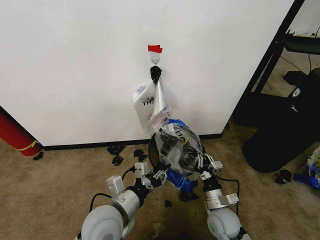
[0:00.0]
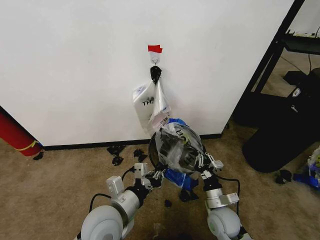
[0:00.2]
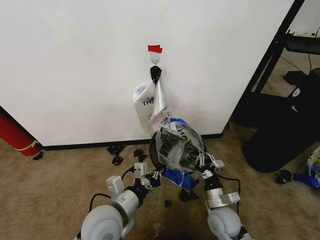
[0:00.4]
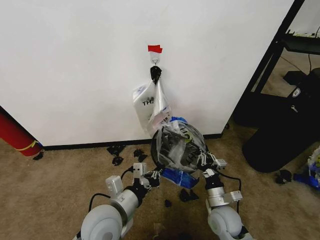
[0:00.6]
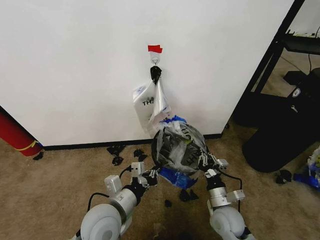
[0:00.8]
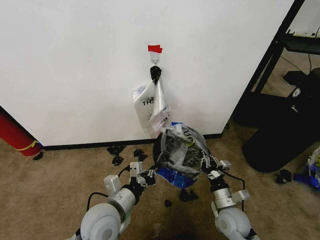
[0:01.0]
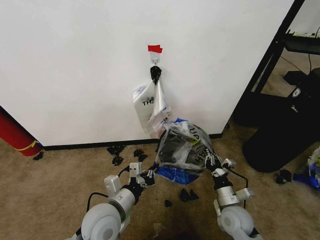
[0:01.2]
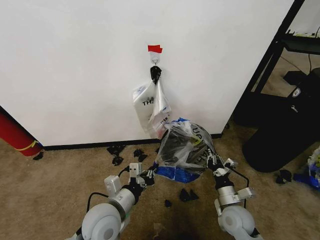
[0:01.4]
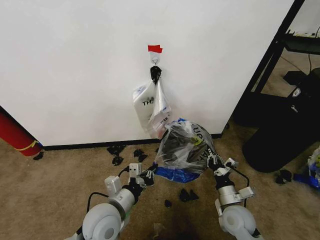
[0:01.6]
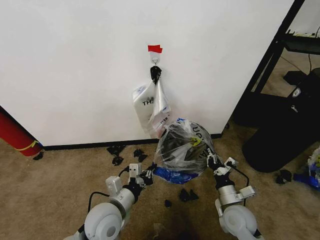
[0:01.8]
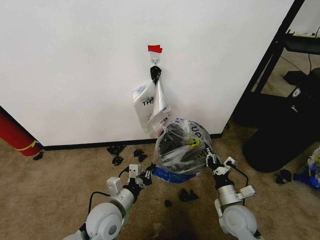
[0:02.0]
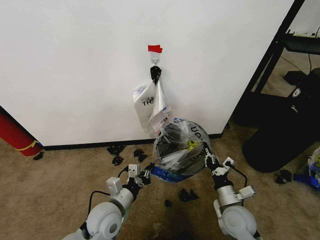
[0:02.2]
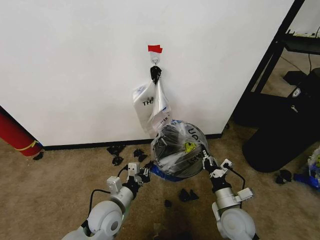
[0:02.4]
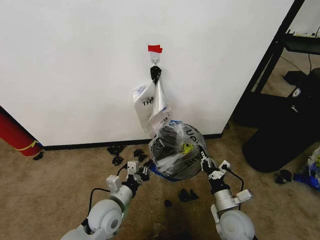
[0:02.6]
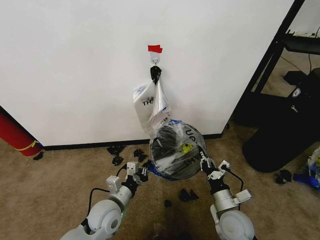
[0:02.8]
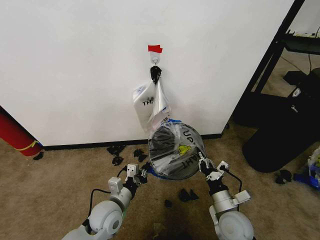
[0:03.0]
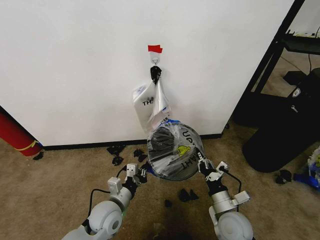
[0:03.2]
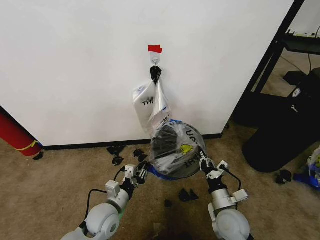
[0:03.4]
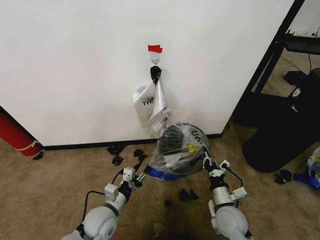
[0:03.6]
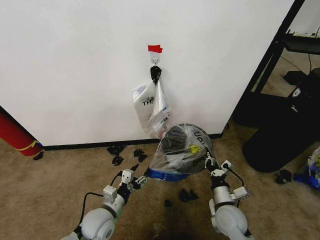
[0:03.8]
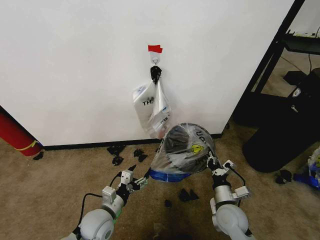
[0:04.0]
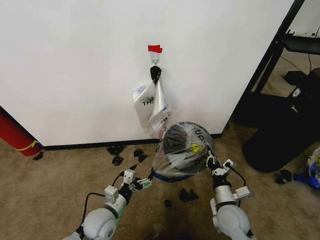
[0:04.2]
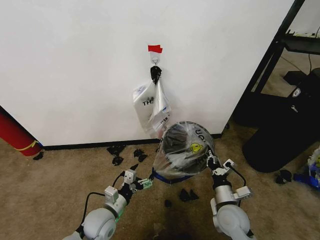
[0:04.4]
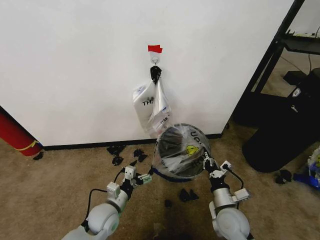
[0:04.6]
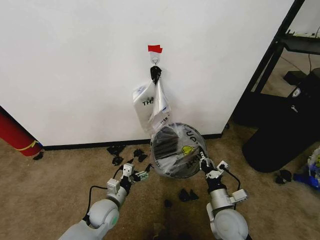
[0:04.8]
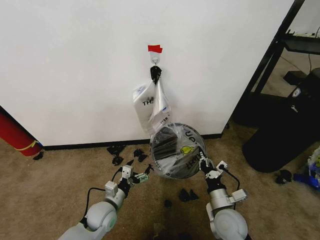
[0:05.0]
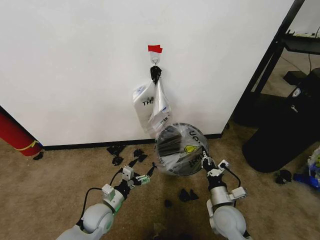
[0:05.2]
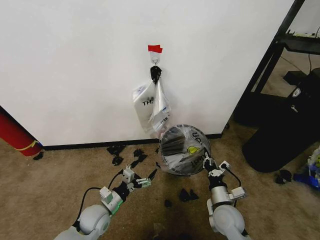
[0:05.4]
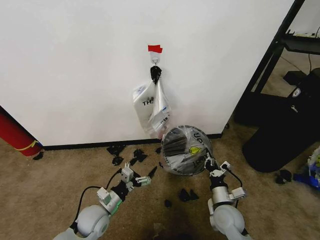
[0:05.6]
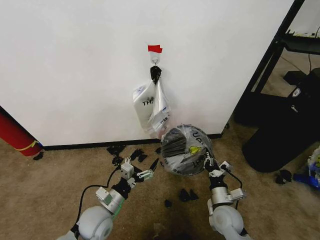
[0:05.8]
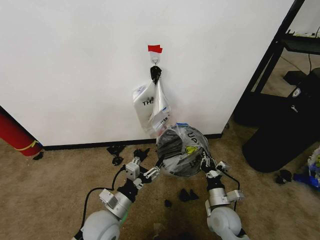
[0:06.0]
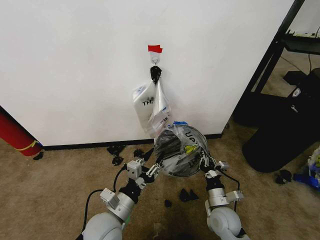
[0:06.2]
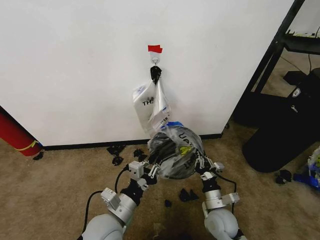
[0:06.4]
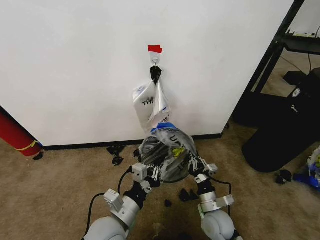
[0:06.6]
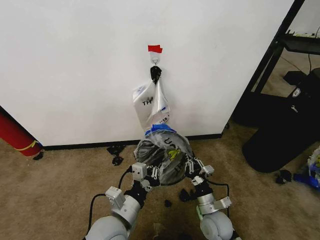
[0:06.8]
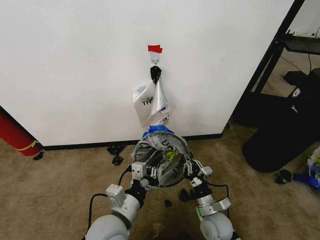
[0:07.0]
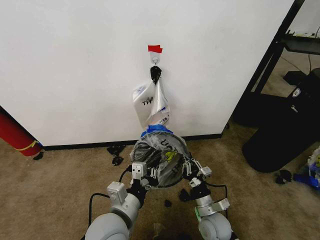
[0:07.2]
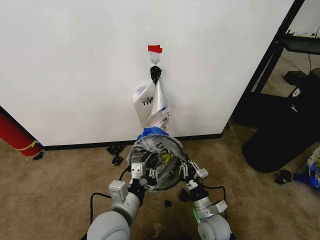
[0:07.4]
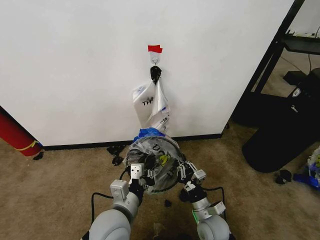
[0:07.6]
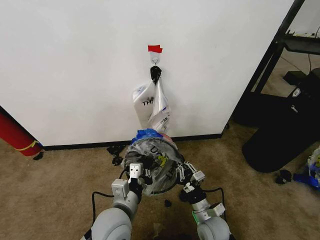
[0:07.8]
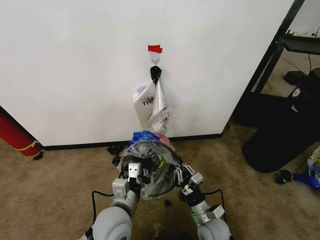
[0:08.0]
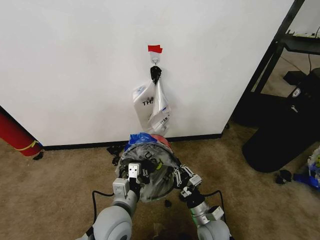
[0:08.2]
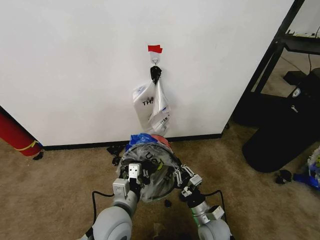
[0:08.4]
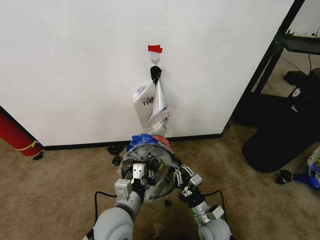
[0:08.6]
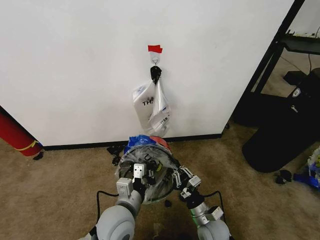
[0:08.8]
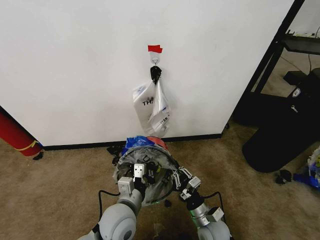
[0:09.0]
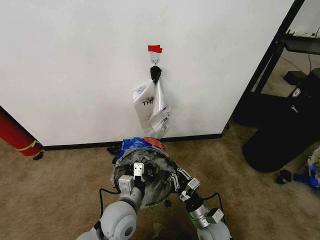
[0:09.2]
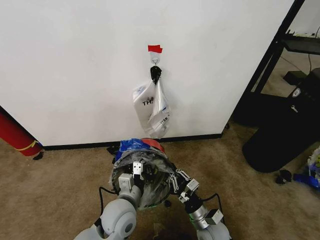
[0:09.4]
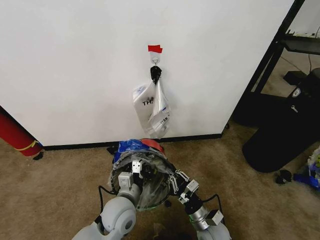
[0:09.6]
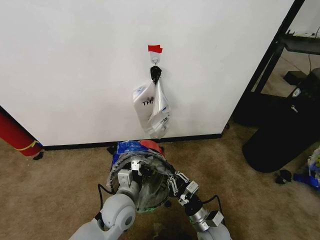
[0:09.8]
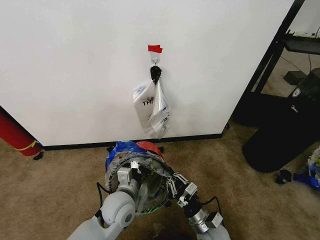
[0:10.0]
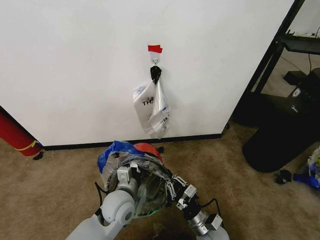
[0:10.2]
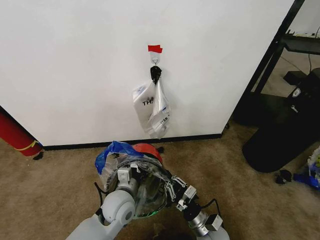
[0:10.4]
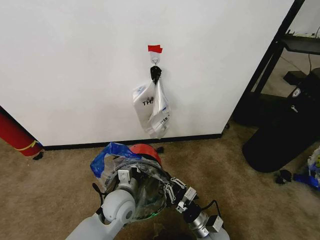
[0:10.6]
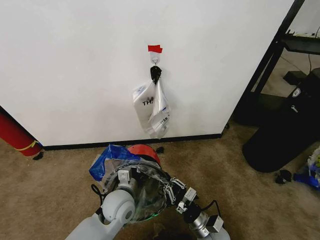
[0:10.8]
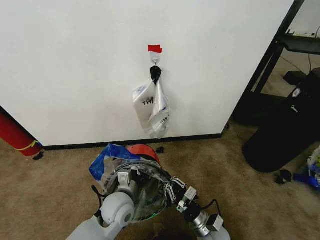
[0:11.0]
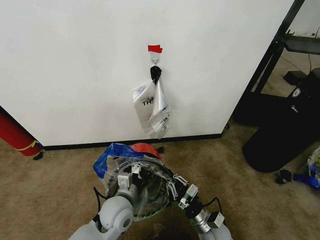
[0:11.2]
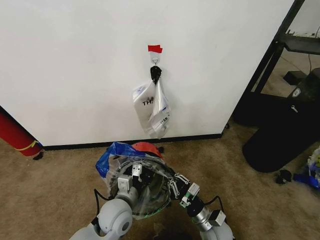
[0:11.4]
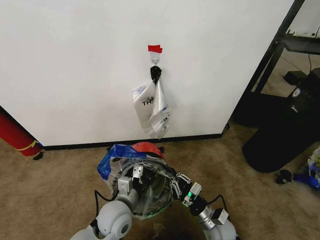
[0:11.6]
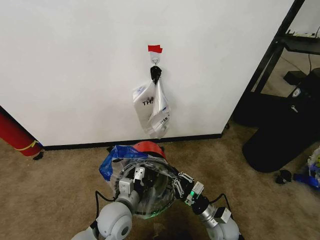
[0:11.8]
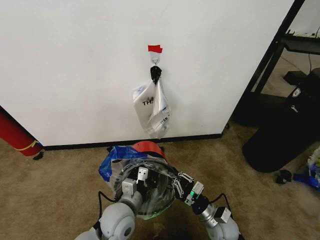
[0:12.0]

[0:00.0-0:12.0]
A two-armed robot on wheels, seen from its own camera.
Task of the whole recording: Pick up the garbage bag from the wall and place it over the trash bin.
0:01.6 to 0:03.0: The left gripper travels downward by roughly 10 cm.
0:03.0 to 0:04.4: The left gripper opens.
0:04.4 to 0:06.0: The left gripper shifts roughly 5 cm upward.
0:06.0 to 0:07.6: The left gripper moves upward, about 5 cm, and closes up. The right gripper moves approximately 5 cm.
0:07.6 to 0:09.0: The grippers move only a little.
0:09.0 to 0:10.4: The left gripper ends up approximately 5 cm from where it was.
0:10.4 to 0:12.0: The grippers stay close to where they were, moving slightly.

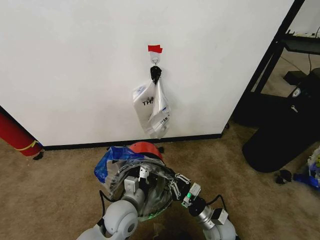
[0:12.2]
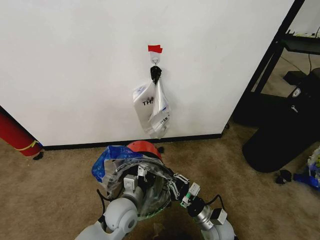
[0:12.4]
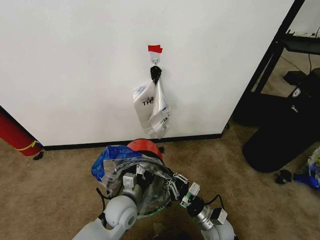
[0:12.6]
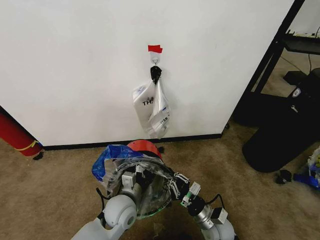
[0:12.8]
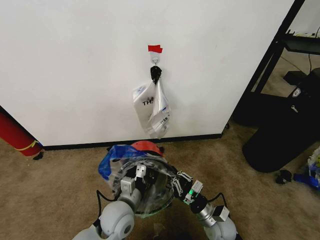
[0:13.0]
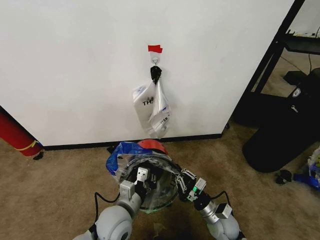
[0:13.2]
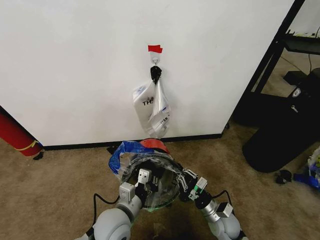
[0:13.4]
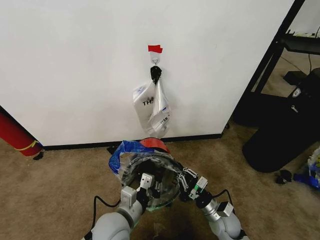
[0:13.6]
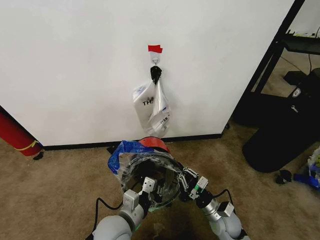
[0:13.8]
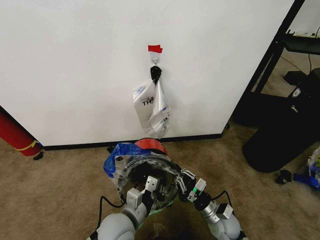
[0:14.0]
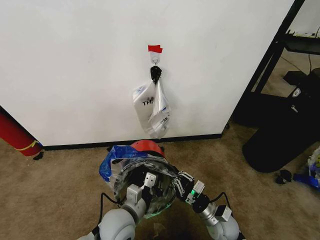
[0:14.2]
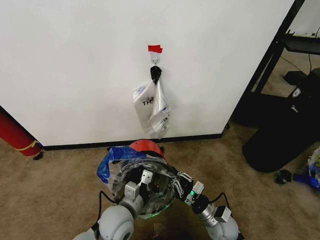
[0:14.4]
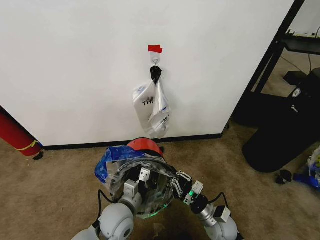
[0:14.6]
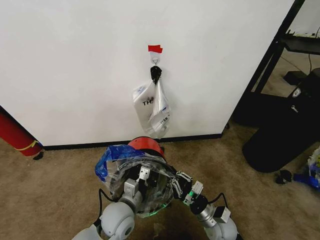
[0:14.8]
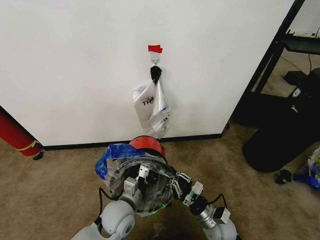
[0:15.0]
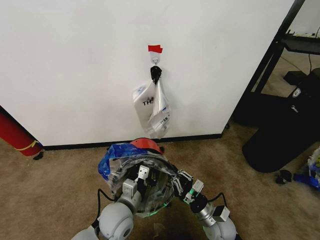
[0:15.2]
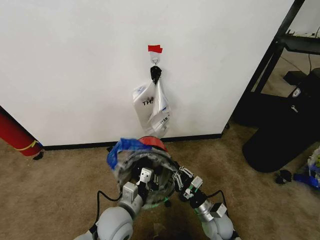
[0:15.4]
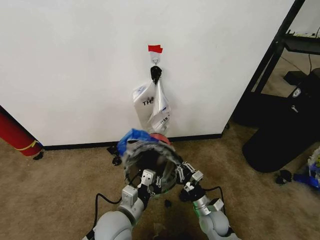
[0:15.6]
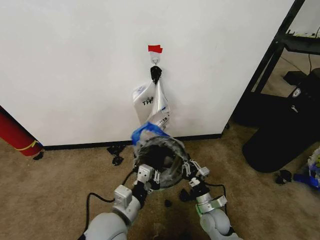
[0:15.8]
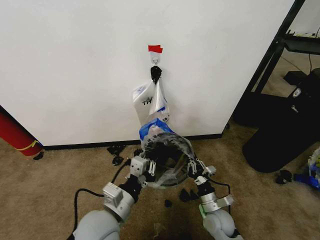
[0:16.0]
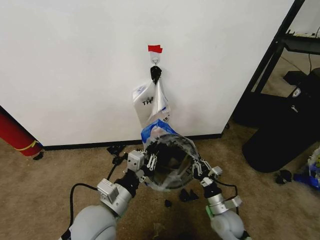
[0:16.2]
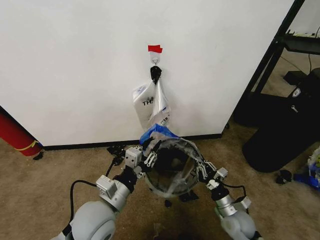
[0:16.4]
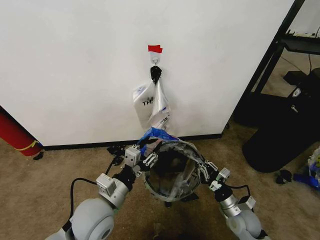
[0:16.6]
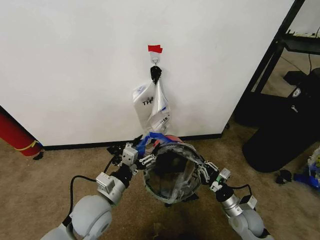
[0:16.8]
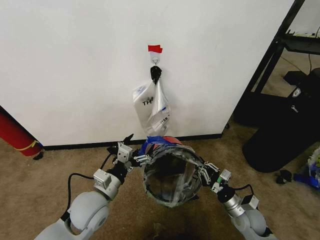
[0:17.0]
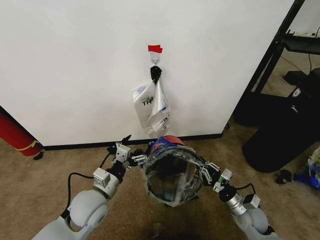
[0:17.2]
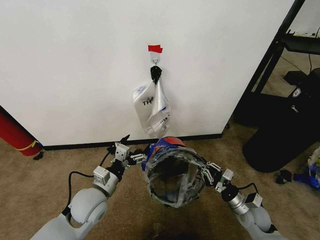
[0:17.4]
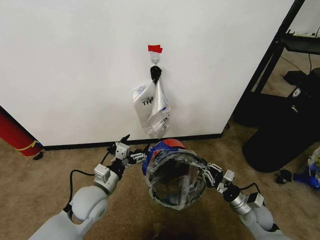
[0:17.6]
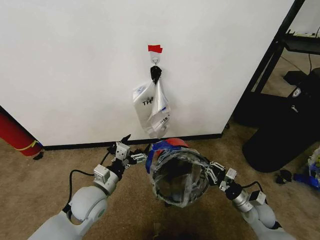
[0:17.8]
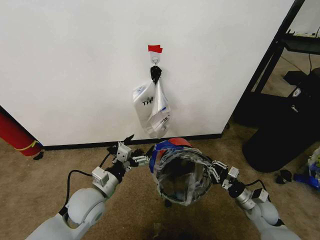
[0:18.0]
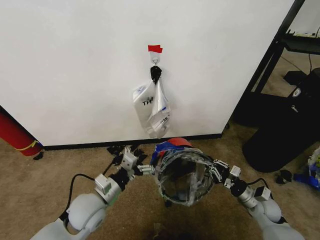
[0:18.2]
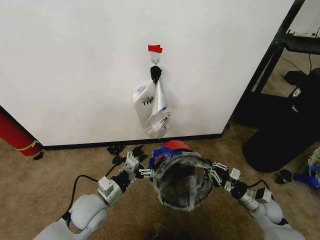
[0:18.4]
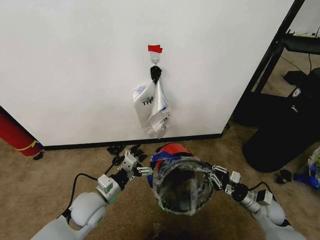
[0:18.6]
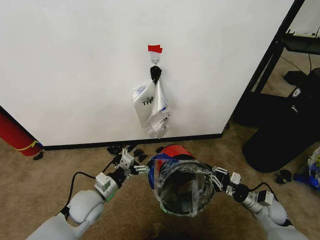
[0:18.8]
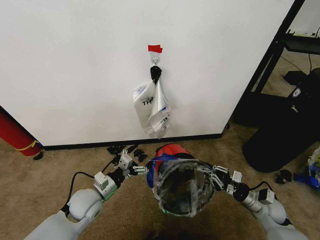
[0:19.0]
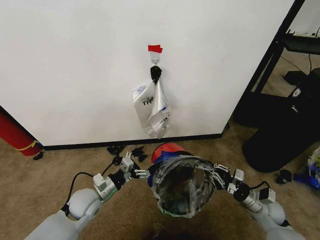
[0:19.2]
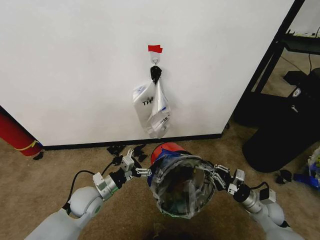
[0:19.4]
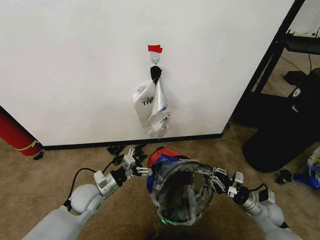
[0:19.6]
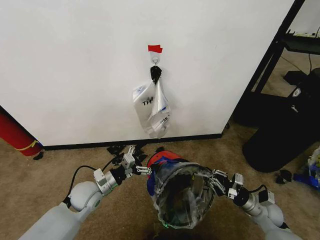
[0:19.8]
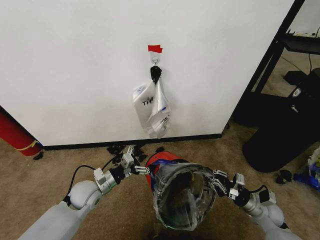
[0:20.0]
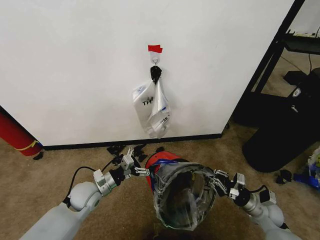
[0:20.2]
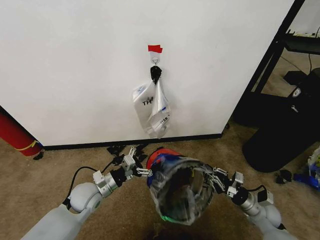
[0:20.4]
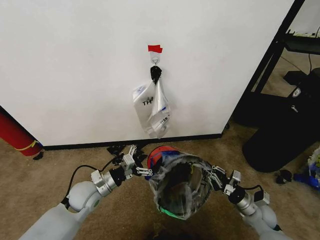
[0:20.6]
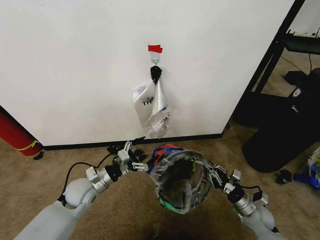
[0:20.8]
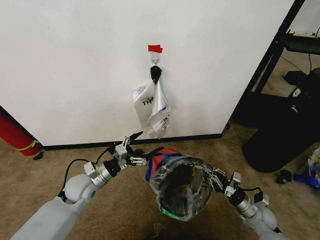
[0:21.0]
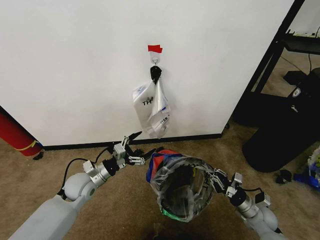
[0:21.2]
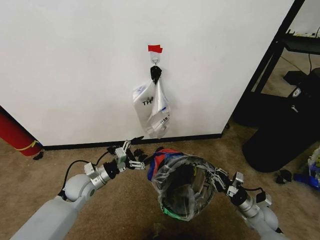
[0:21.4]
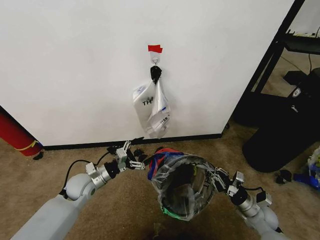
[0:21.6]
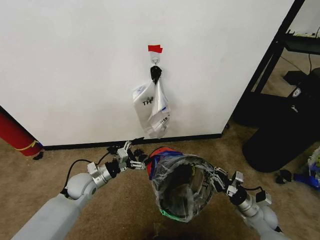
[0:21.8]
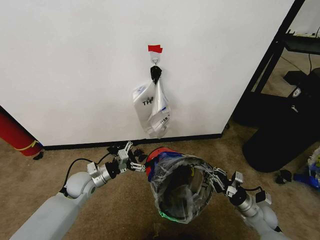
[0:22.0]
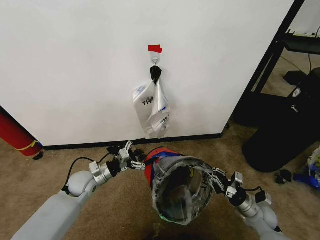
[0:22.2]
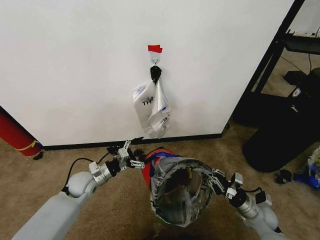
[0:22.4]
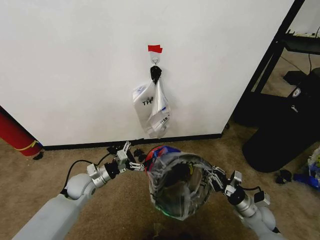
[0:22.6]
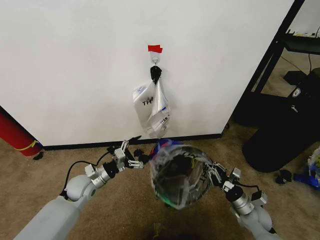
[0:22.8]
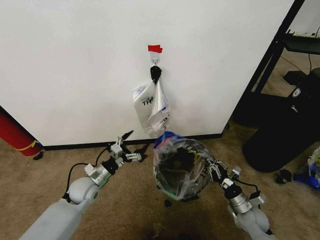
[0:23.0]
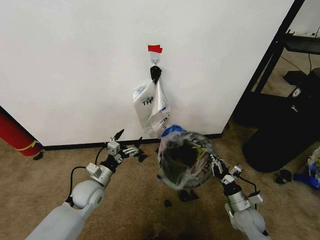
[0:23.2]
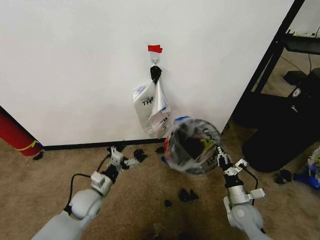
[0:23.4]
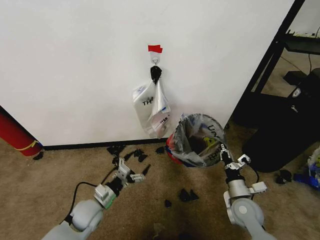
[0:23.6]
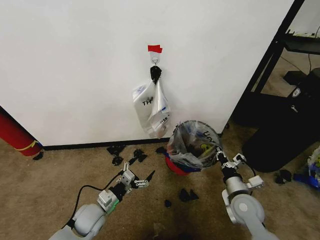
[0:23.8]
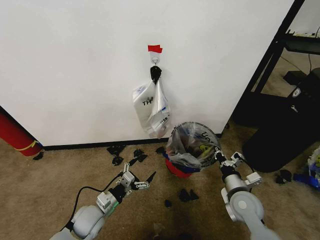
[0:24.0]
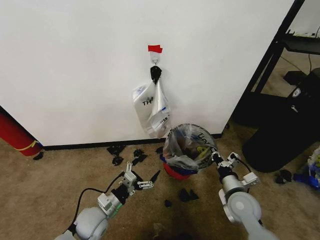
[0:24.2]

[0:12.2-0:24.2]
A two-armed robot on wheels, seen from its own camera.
Task of the whole recording: Pick up the garbage bag from the wall and place it over the trash bin.
0:12.2 to 0:13.8: The left gripper moves backward, some 5 cm.
0:13.8 to 0:15.2: The left gripper heads forward, covering some 5 cm.
0:15.2 to 0:16.6: The right gripper shifts about 10 cm to the right; the left gripper moves upward, about 10 cm, and opens up.
0:16.6 to 0:18.2: The right gripper travels to the right by about 10 cm, while the left gripper ends up roughly 5 cm from where it was, and opens.
0:18.2 to 0:19.8: The left gripper heads forward, covering some 5 cm.
0:19.8 to 0:22.6: There are only small adjustments of the grippers.
0:22.6 to 0:24.2: The left gripper heads backward and to the right, covering approximately 15 cm, while the right gripper shifts approximately 15 cm upward and to the left.
